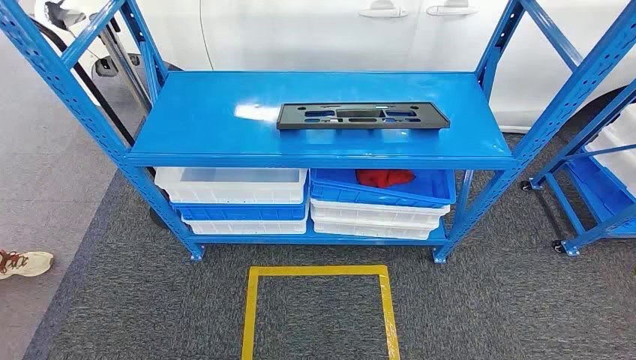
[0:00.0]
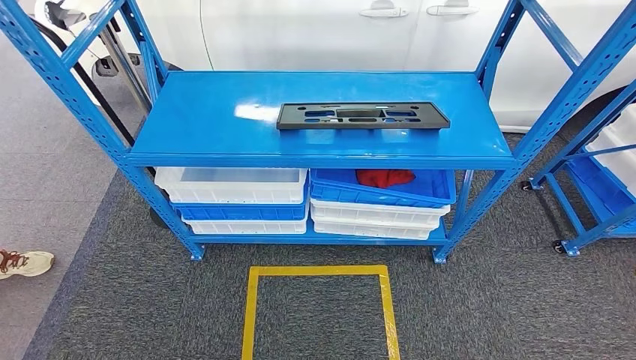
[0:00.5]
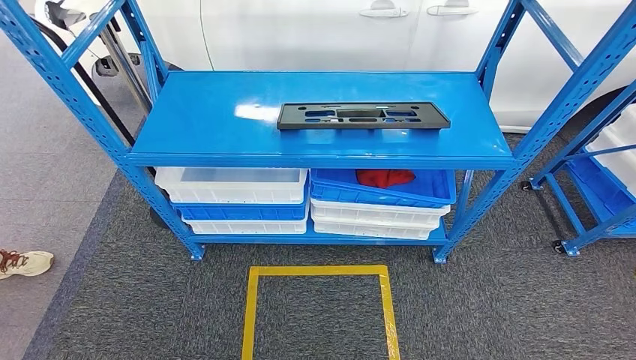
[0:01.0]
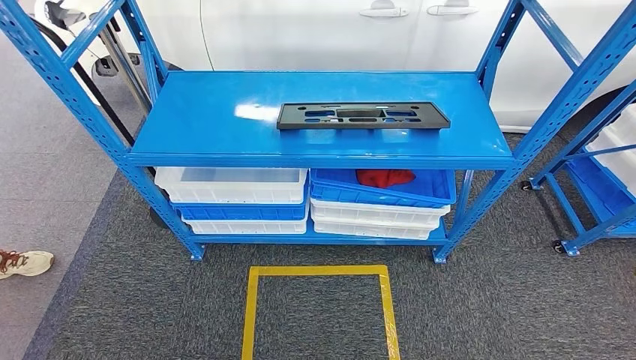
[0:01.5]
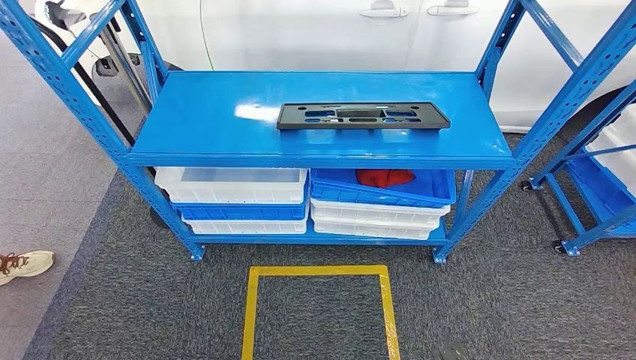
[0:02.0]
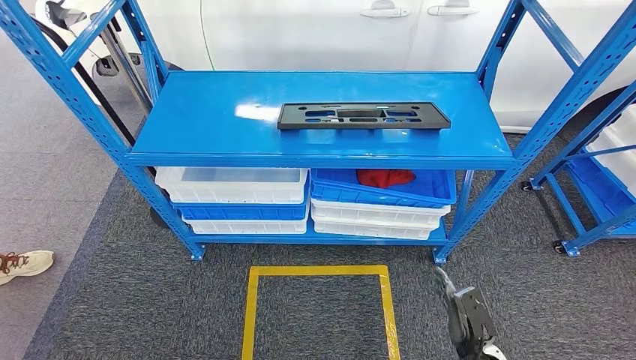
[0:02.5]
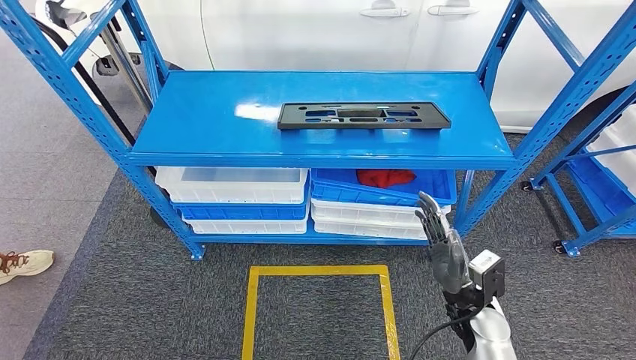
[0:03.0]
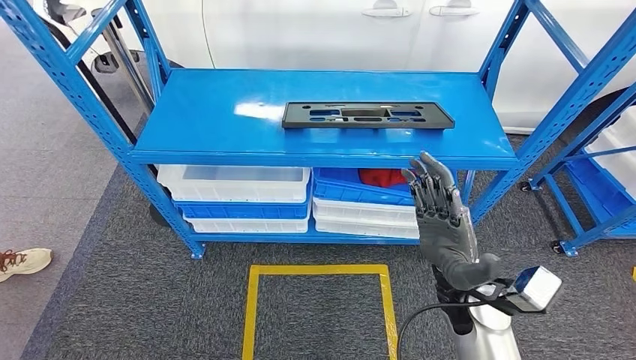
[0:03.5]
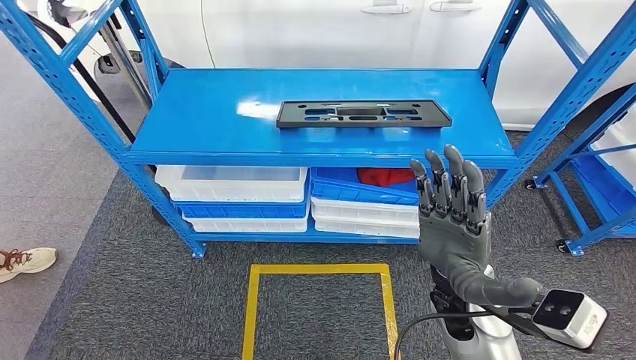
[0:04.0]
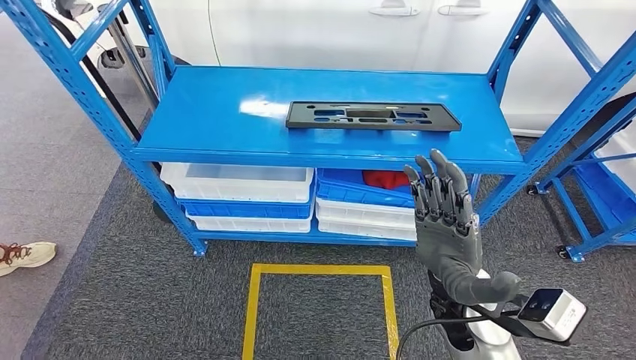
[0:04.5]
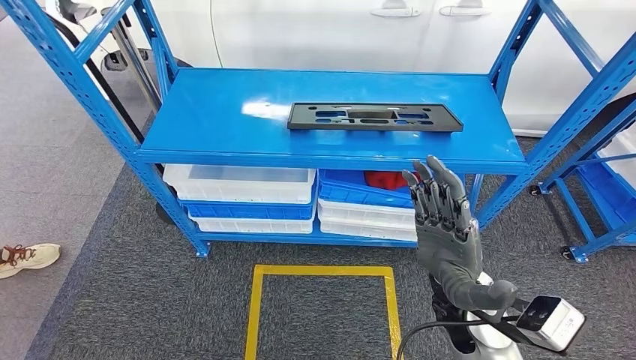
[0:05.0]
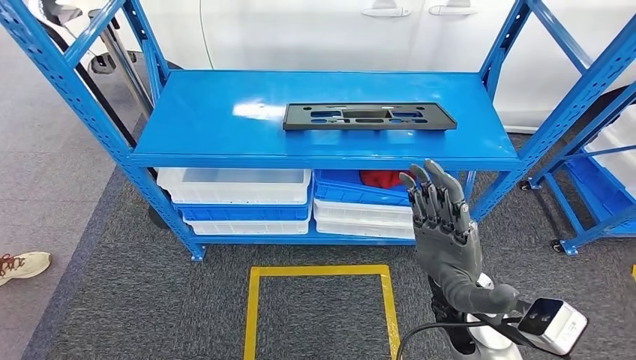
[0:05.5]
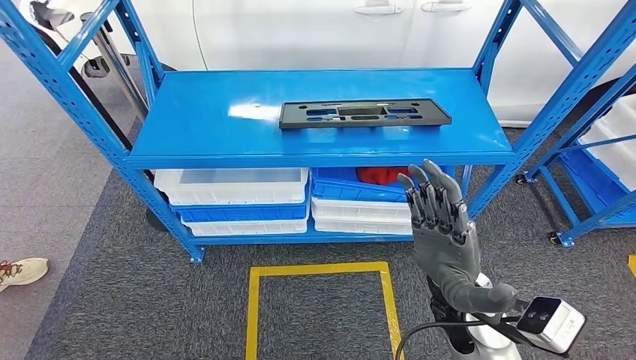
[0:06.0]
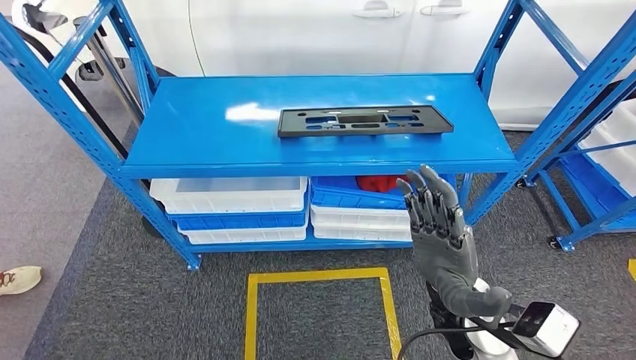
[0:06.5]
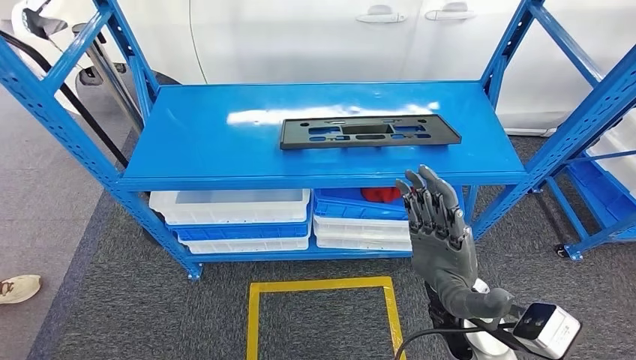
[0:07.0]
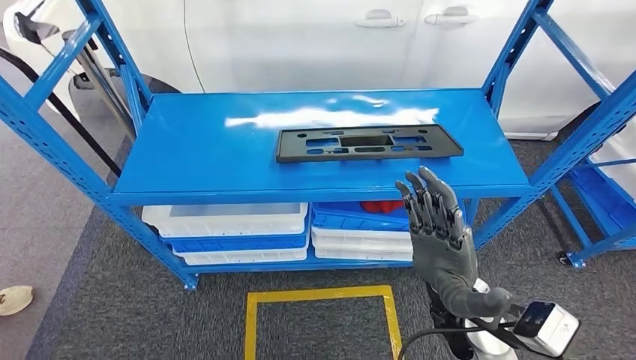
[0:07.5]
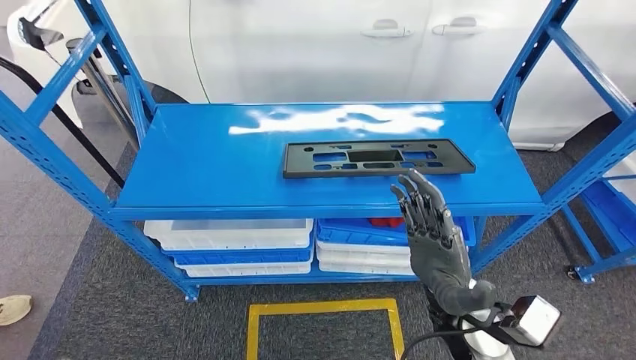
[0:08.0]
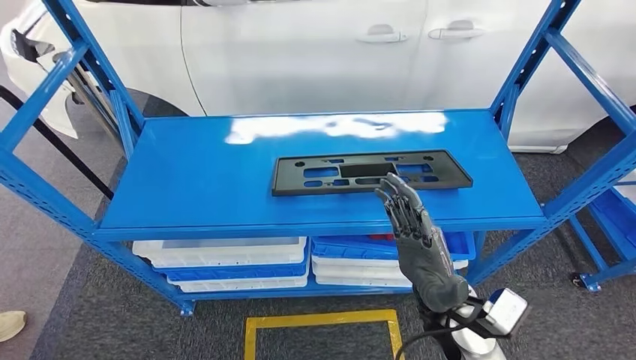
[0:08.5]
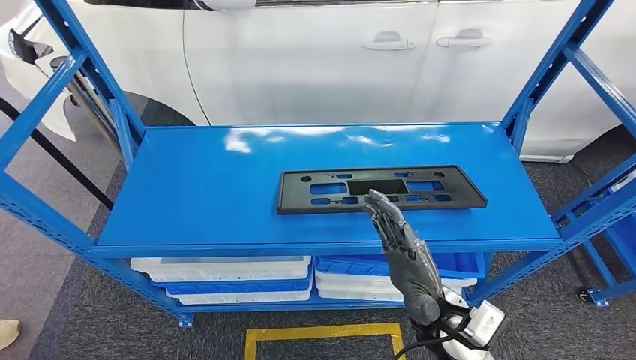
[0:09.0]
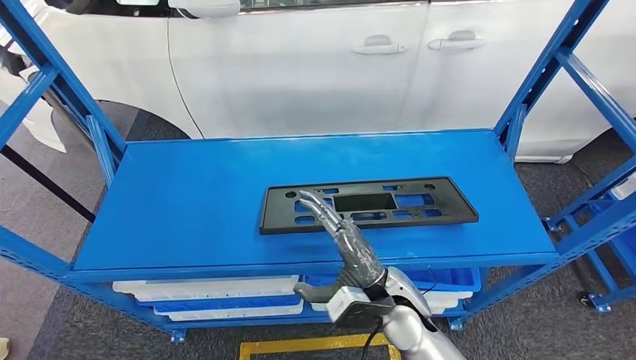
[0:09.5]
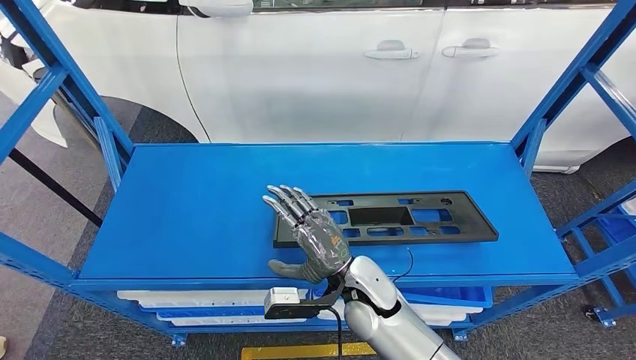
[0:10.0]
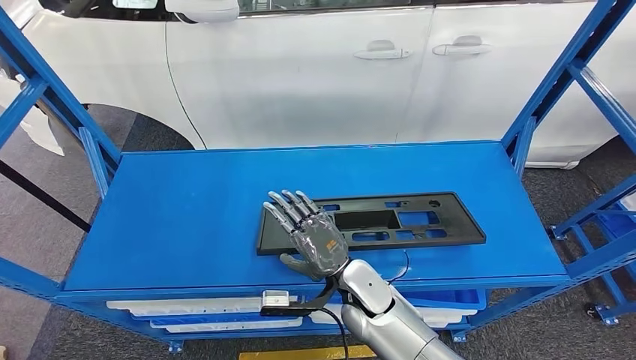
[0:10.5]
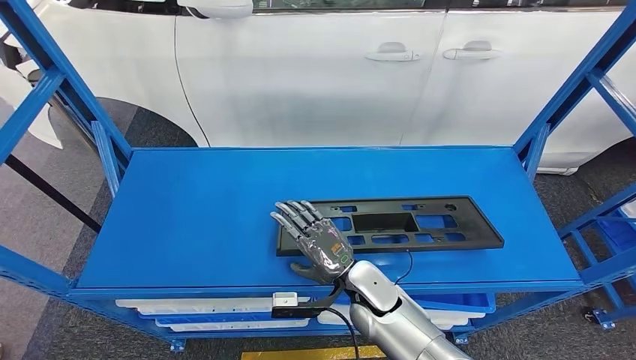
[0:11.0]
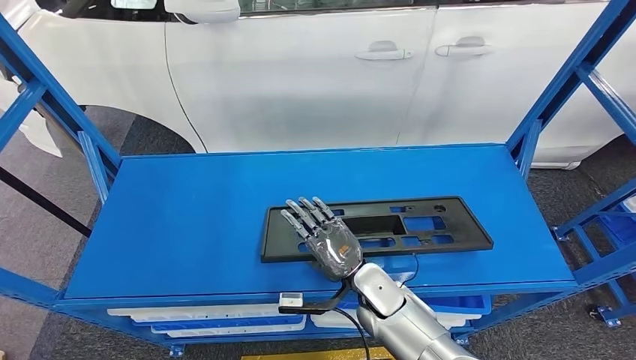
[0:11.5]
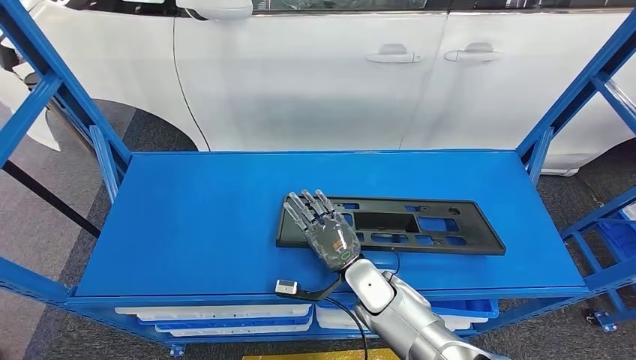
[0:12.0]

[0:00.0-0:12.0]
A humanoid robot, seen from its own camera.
0:02.0 to 0:04.0: The right hand is displaced upward and forward by approximately 35 cm.

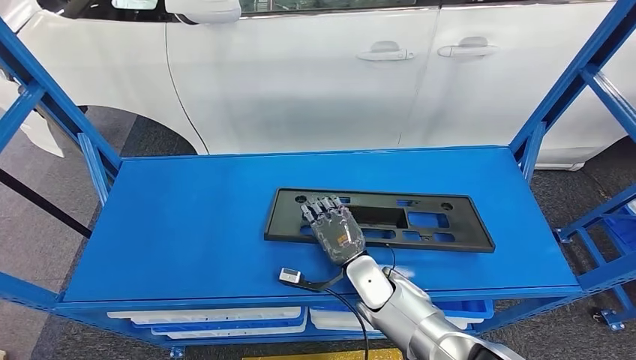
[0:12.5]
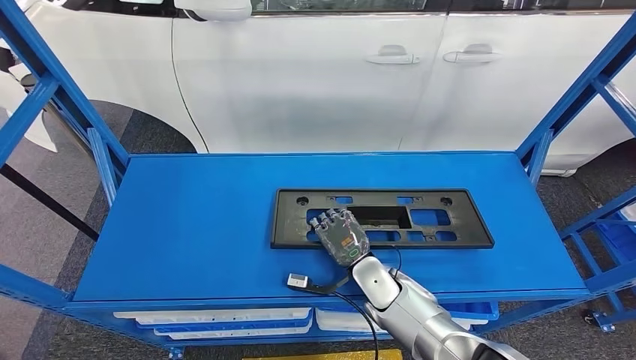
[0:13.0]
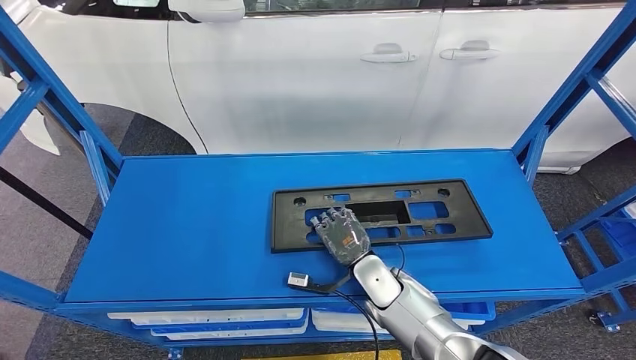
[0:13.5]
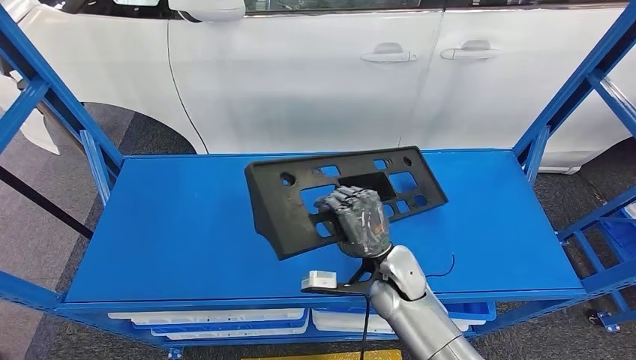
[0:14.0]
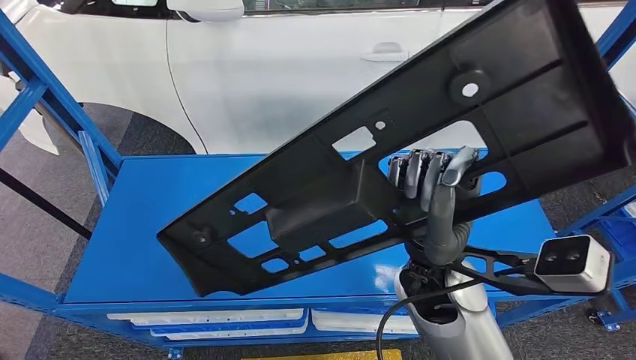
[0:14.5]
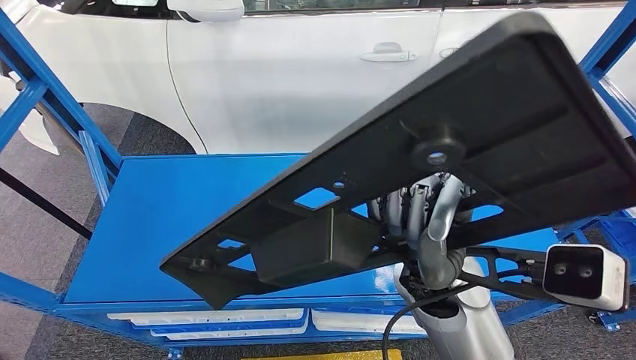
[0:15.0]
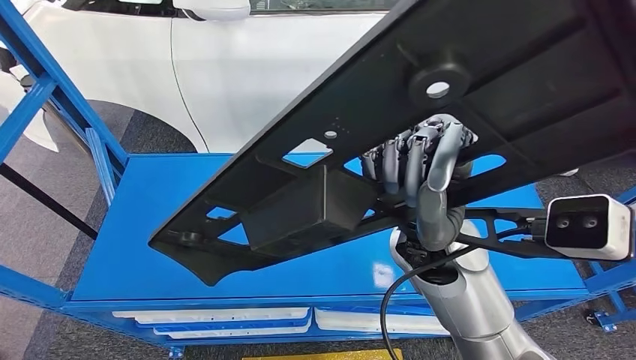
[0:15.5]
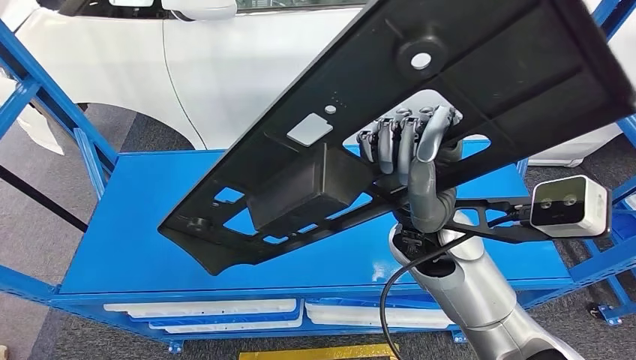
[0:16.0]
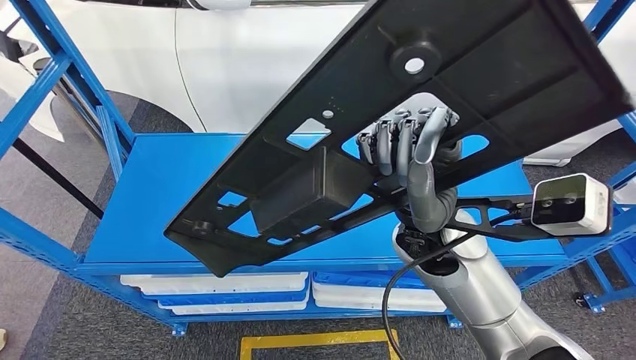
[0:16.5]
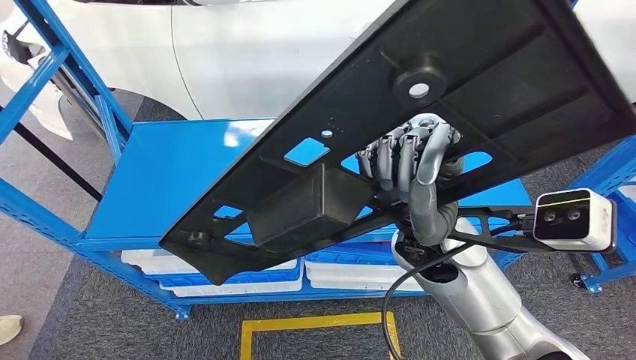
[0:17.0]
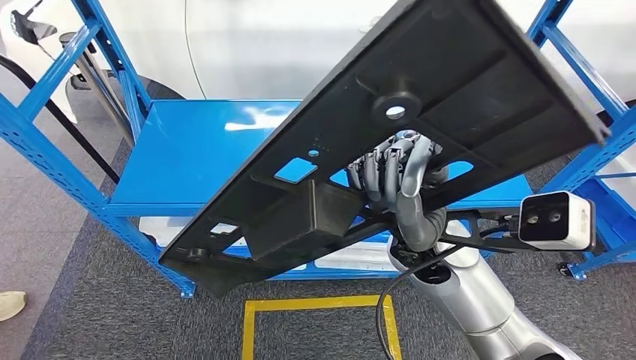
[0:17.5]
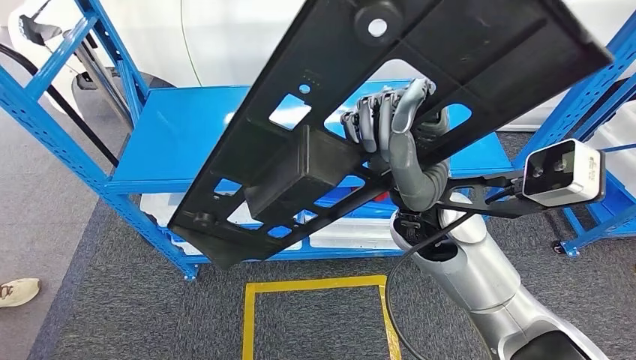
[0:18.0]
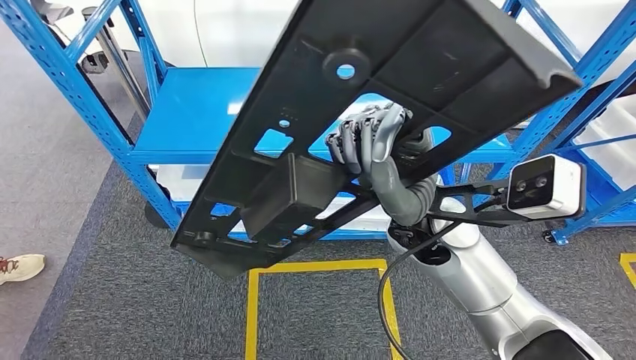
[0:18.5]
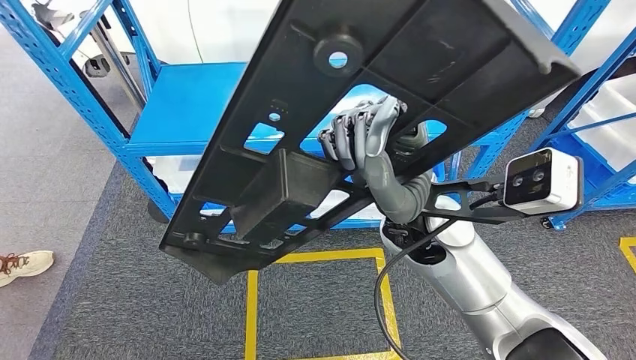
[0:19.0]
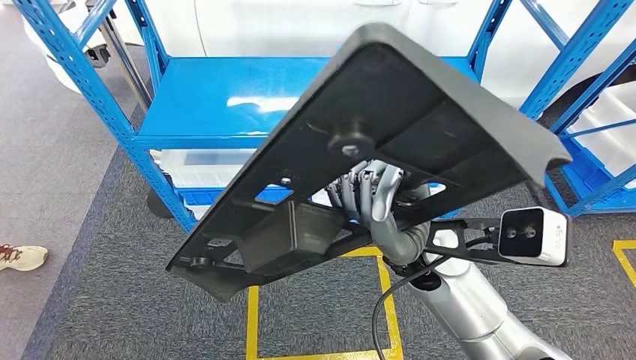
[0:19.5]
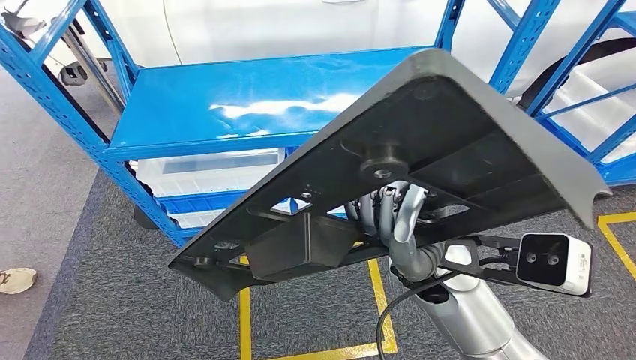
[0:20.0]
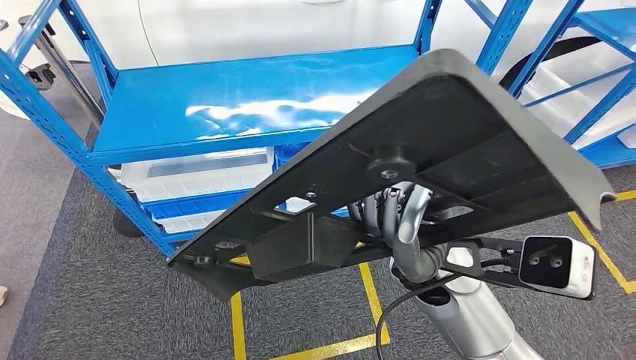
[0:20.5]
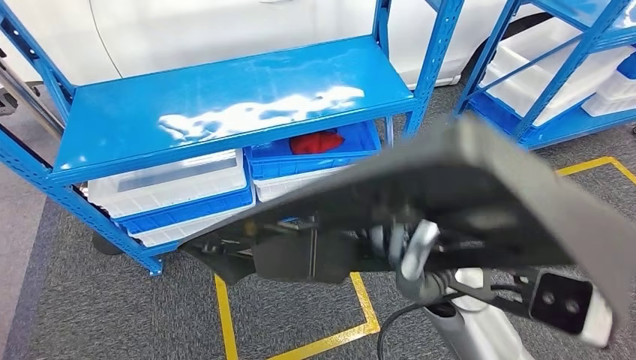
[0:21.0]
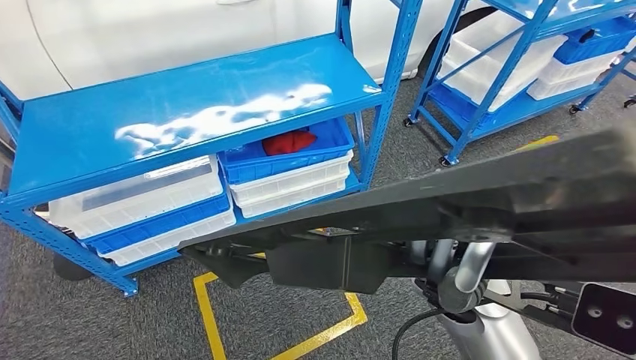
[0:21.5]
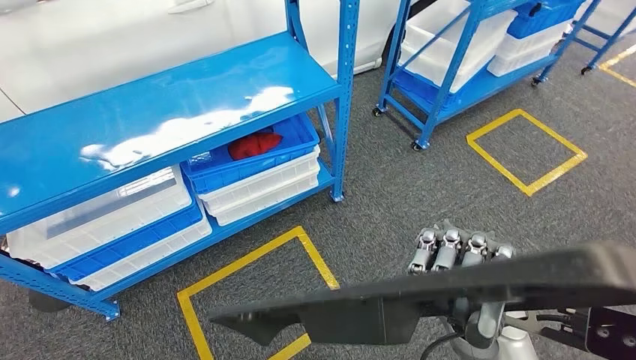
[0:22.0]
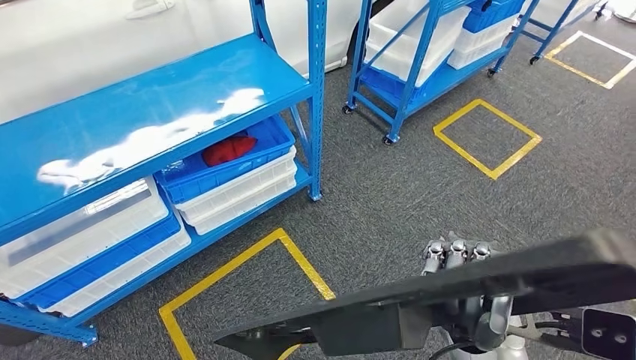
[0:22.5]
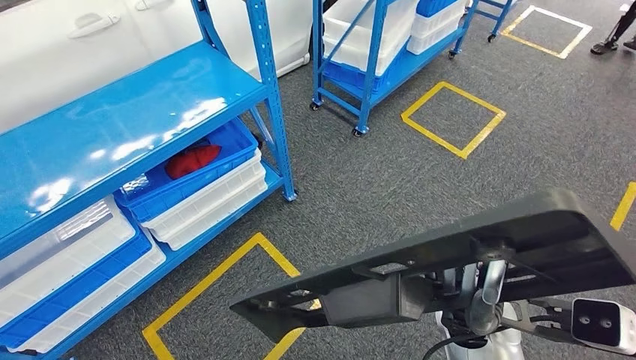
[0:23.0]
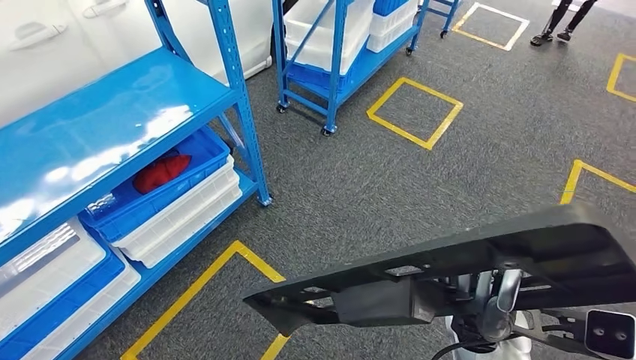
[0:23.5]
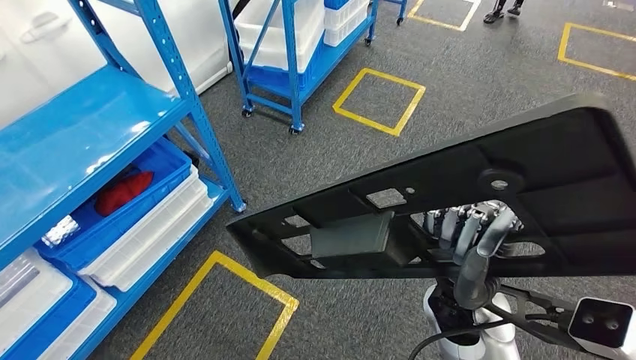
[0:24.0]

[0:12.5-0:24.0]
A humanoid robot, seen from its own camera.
Step, 0:12.5 to 0:15.0: Pick up the large material from the shelf.
